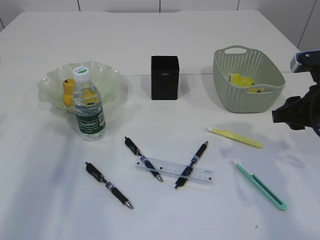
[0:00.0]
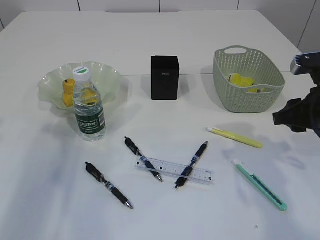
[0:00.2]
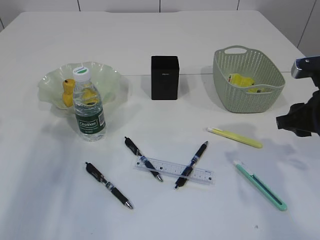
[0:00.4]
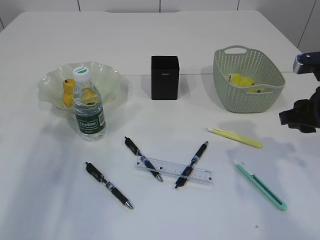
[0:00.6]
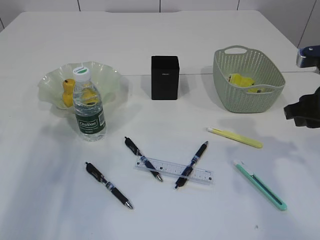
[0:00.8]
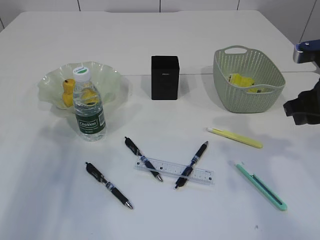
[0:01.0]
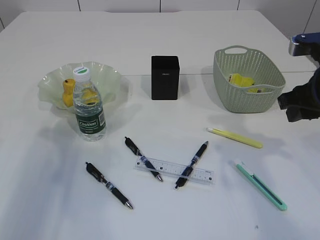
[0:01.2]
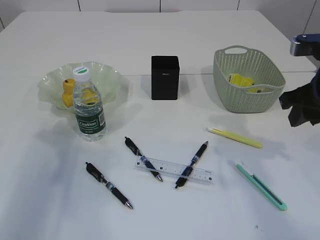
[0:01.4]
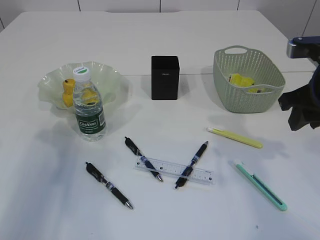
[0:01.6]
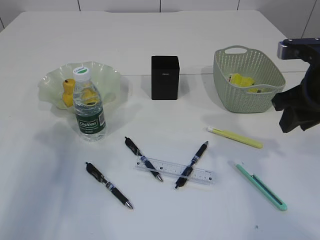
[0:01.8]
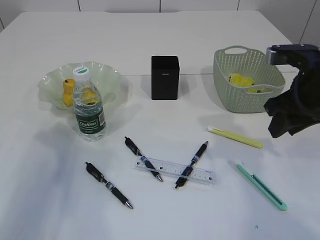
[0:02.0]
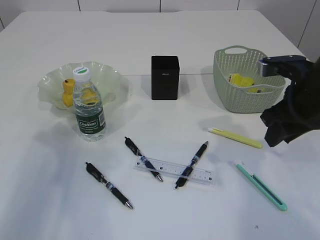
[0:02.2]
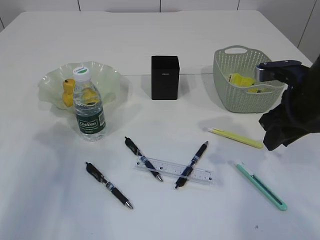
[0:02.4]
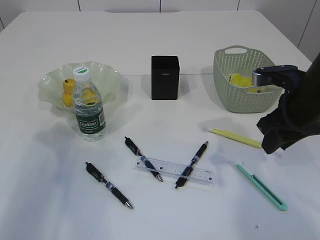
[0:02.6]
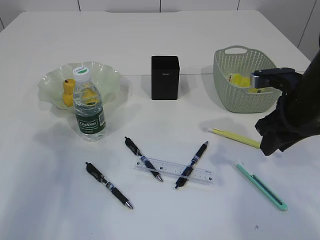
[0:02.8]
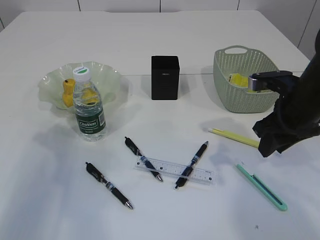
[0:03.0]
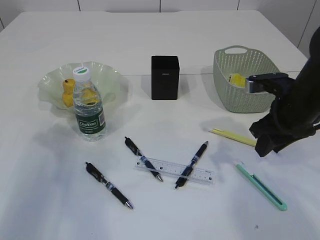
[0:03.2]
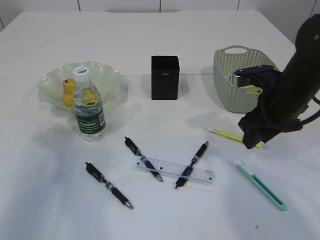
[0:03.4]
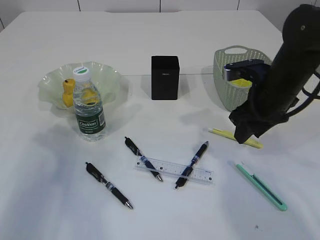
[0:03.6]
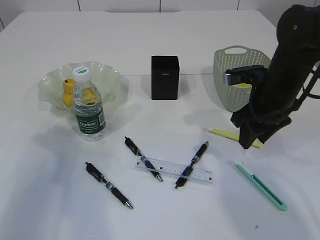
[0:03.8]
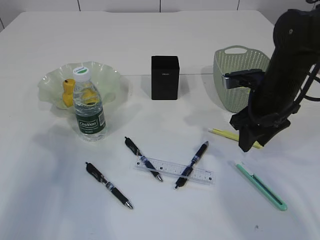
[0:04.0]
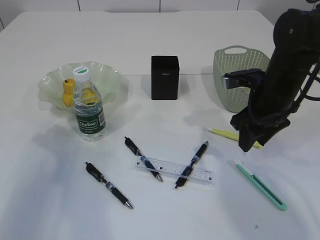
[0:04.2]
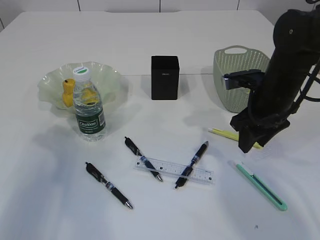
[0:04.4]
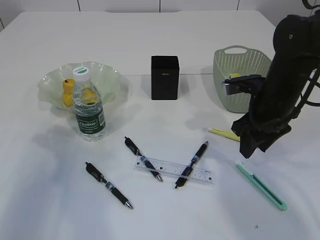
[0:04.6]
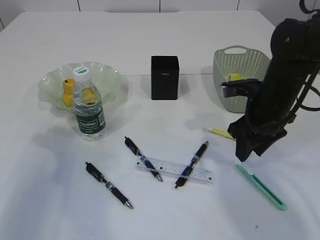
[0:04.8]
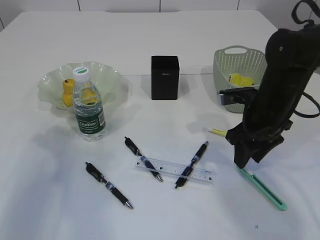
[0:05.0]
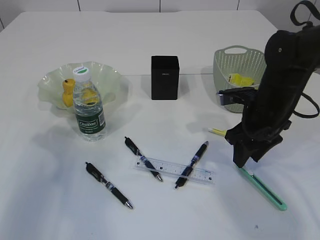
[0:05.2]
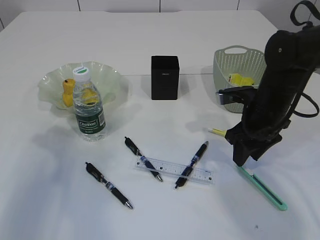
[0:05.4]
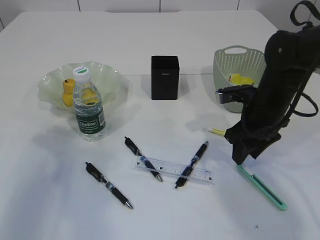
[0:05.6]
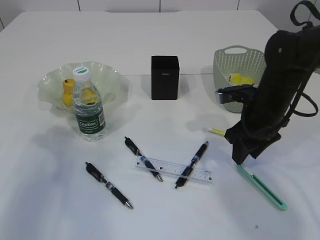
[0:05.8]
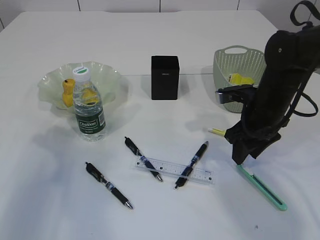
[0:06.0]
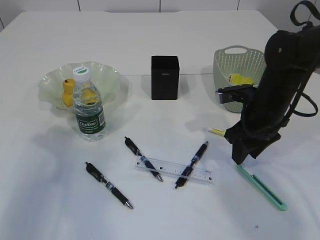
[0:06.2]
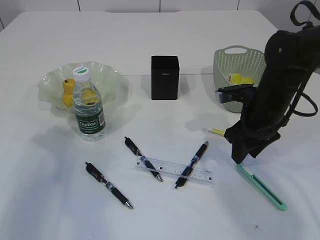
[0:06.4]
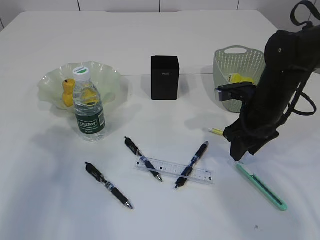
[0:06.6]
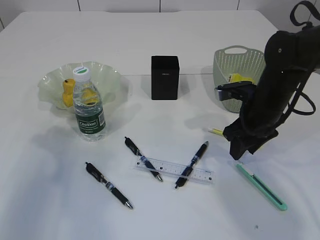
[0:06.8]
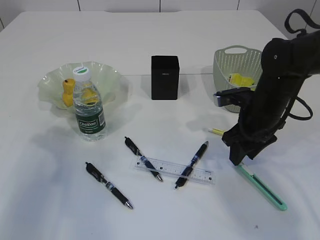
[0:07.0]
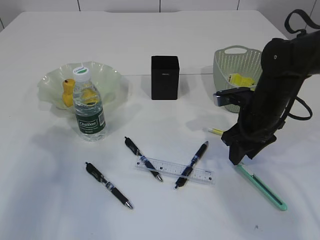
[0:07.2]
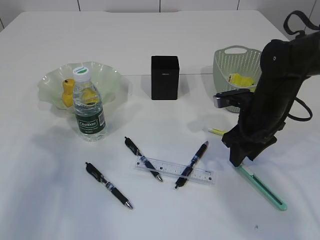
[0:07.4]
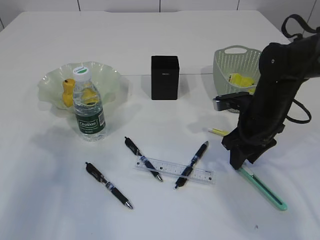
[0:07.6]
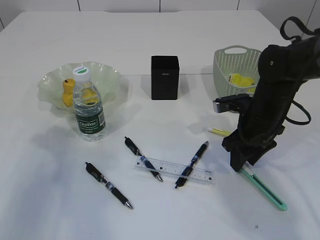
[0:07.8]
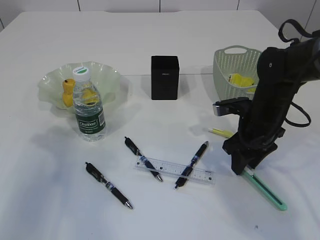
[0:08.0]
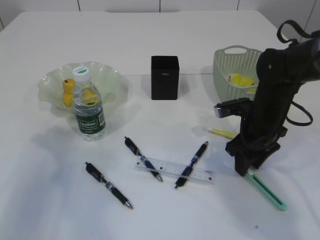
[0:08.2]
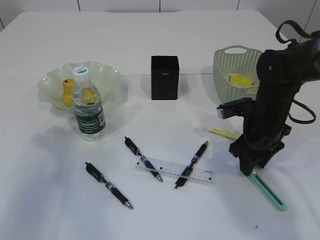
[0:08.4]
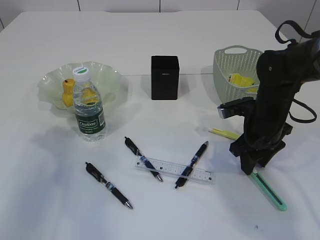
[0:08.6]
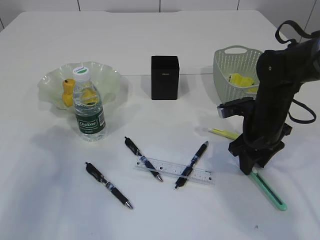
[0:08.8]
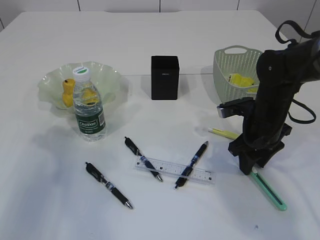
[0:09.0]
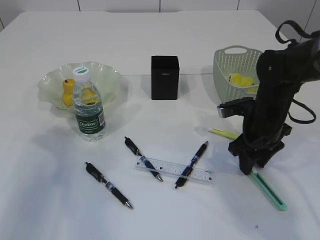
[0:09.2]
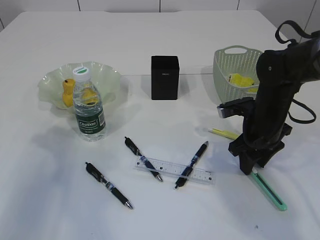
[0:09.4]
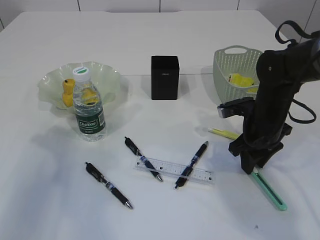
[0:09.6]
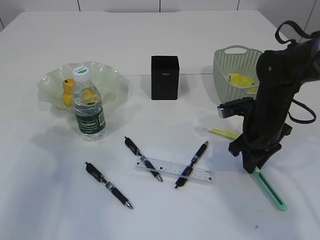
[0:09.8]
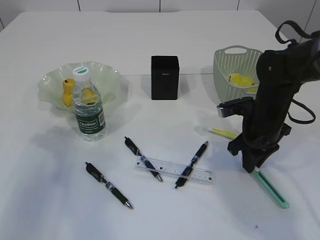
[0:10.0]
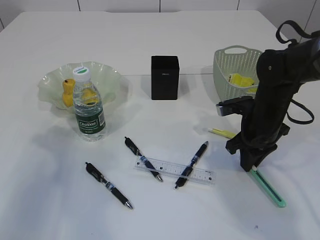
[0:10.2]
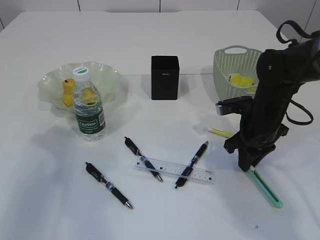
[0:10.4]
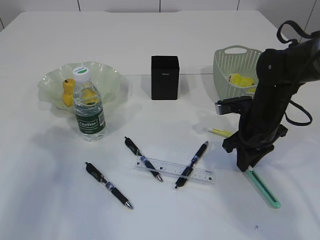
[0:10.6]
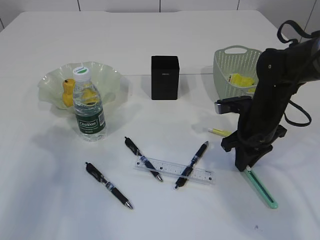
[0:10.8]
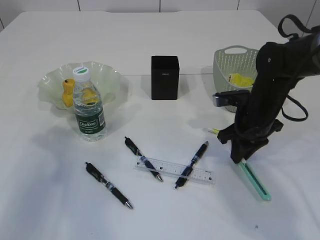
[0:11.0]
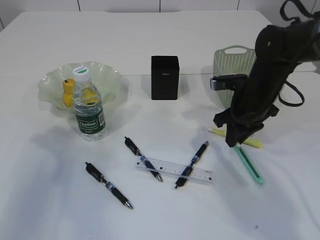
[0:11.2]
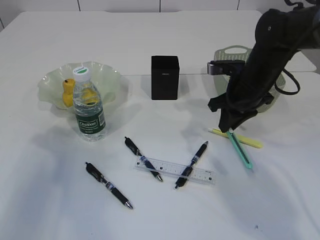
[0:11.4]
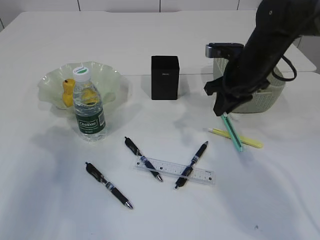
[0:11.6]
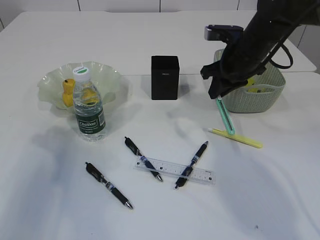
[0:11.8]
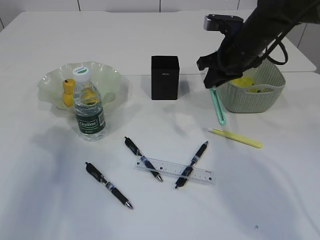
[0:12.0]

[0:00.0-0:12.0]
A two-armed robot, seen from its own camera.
Step, 0:00.0 to 0:11.2: pick up the blue knife.
0:00.0 to 0:01.6: The right gripper goes roughly 5 cm upward.
0:01.6 to 0:03.0: The right gripper heads downward, covering roughly 5 cm.
0:03.0 to 0:04.4: The grippers move only a little.
0:04.4 to 0:07.6: There are only small adjustments of the grippers.
0:07.6 to 0:09.0: The grippers move only a little.
0:09.0 to 0:10.4: The right gripper closes.
0:10.4 to 0:12.0: The right gripper goes approximately 15 cm upward and forward.

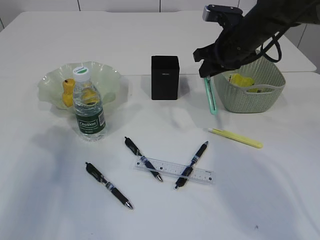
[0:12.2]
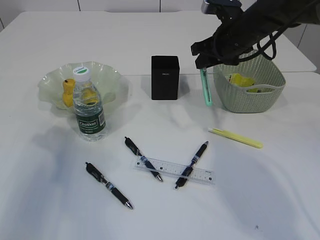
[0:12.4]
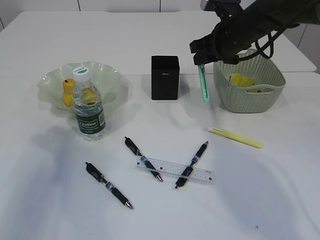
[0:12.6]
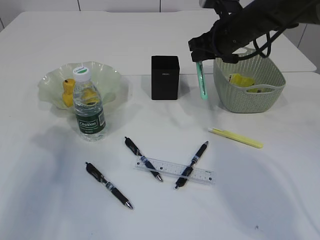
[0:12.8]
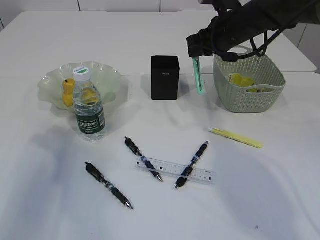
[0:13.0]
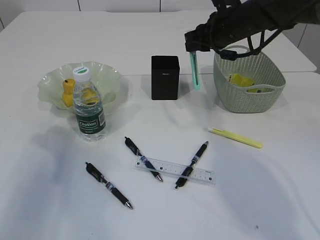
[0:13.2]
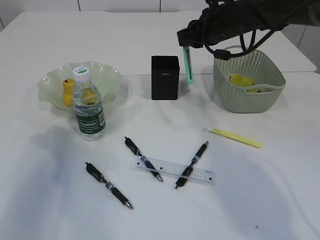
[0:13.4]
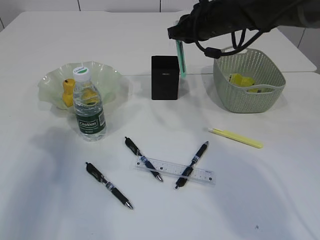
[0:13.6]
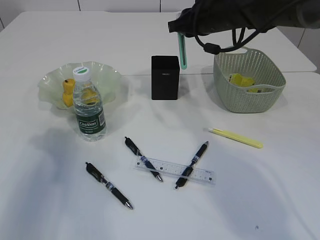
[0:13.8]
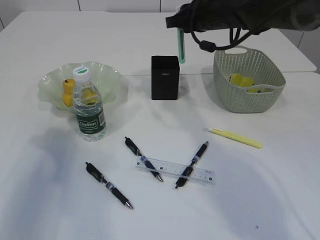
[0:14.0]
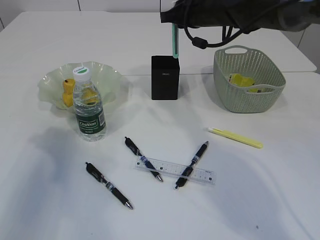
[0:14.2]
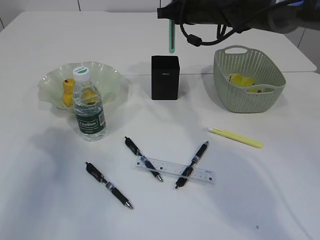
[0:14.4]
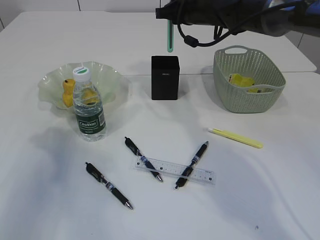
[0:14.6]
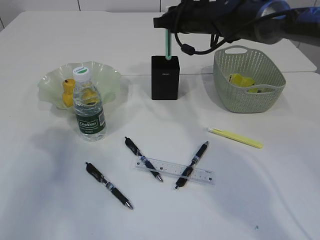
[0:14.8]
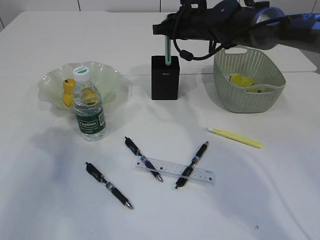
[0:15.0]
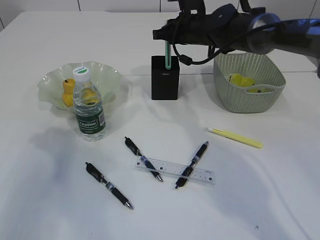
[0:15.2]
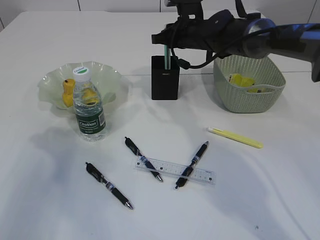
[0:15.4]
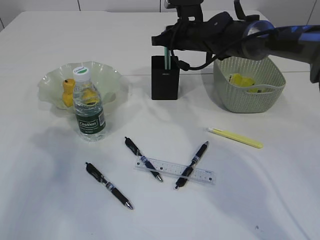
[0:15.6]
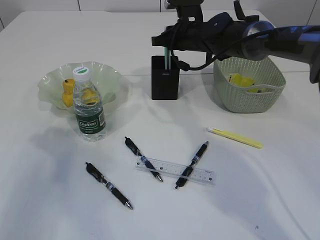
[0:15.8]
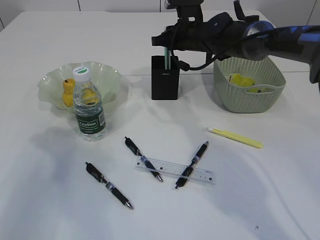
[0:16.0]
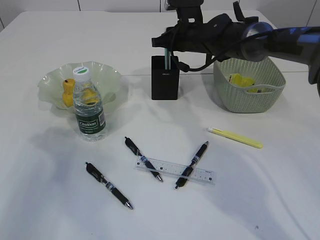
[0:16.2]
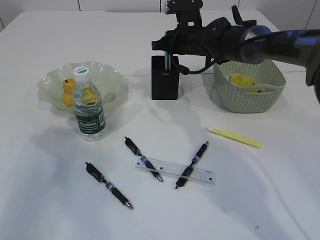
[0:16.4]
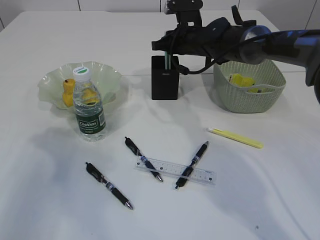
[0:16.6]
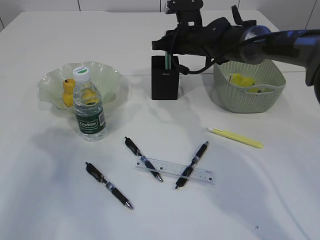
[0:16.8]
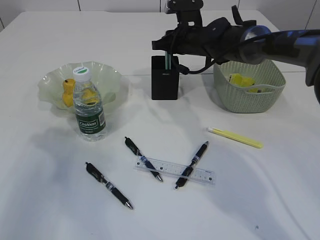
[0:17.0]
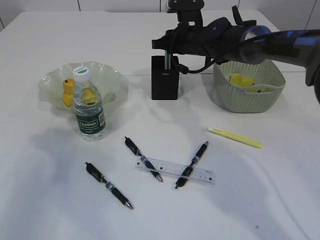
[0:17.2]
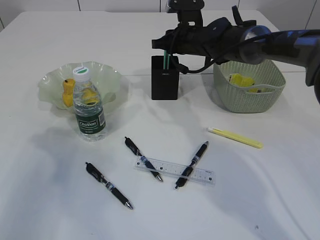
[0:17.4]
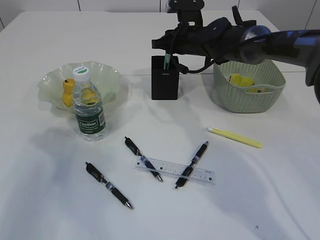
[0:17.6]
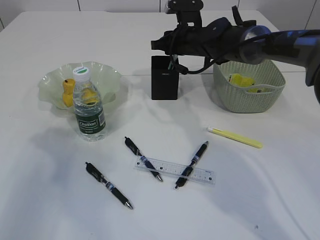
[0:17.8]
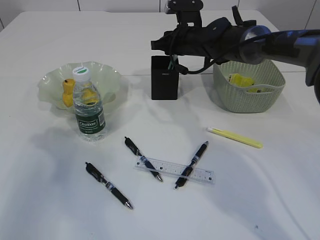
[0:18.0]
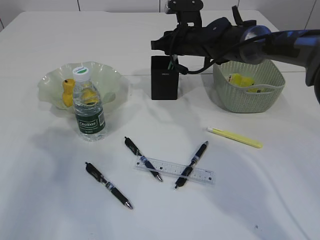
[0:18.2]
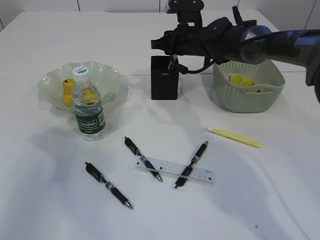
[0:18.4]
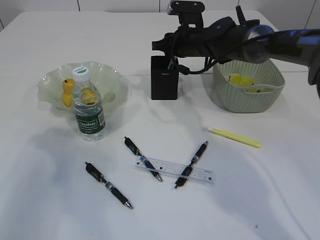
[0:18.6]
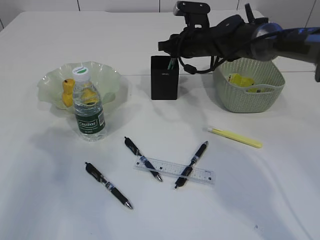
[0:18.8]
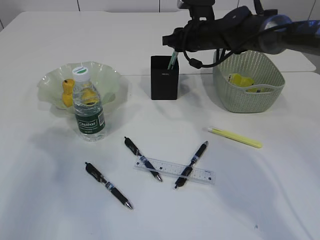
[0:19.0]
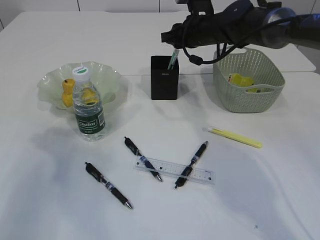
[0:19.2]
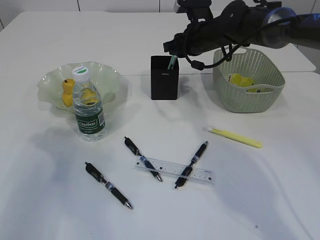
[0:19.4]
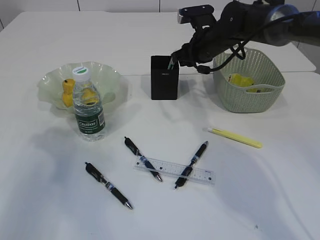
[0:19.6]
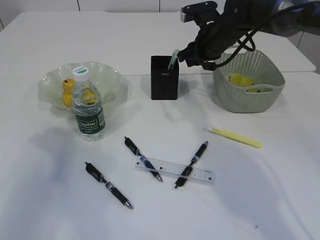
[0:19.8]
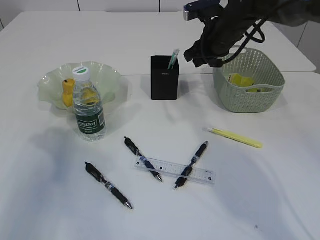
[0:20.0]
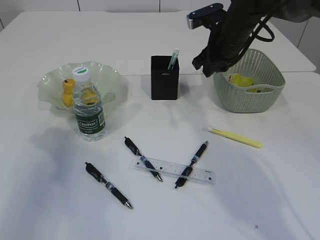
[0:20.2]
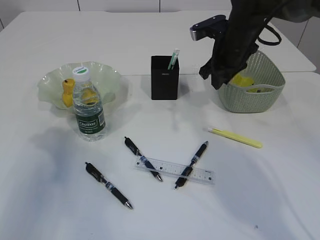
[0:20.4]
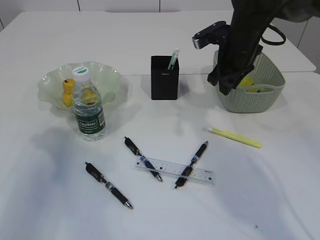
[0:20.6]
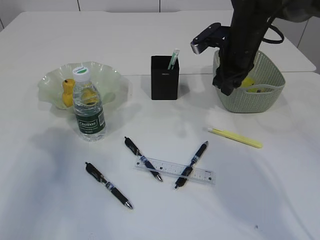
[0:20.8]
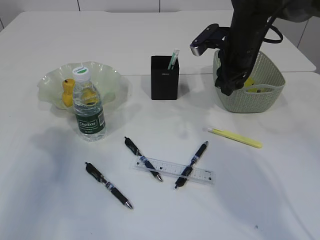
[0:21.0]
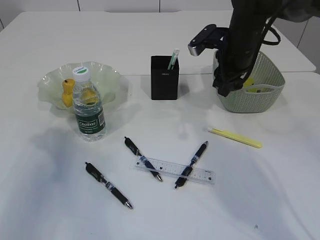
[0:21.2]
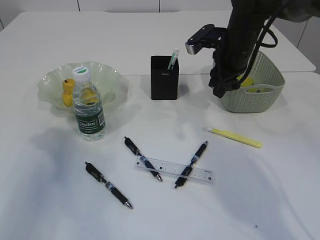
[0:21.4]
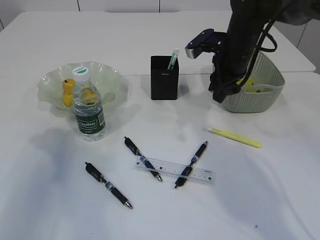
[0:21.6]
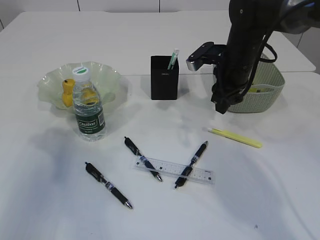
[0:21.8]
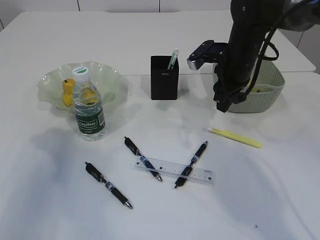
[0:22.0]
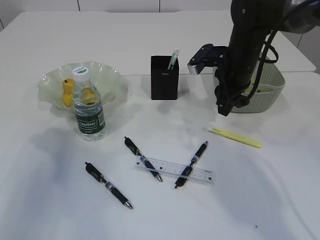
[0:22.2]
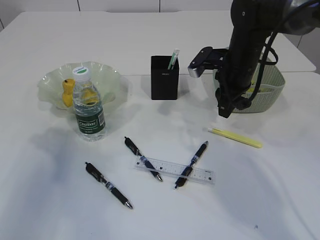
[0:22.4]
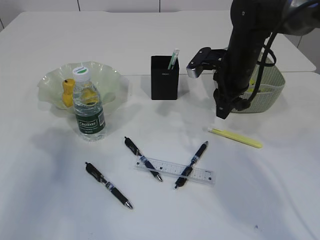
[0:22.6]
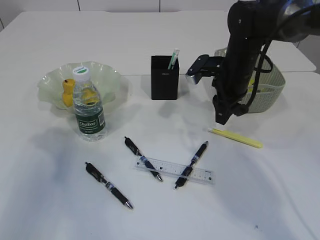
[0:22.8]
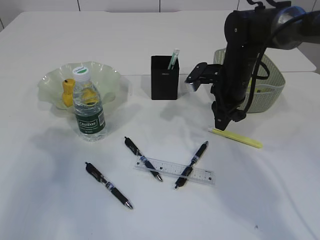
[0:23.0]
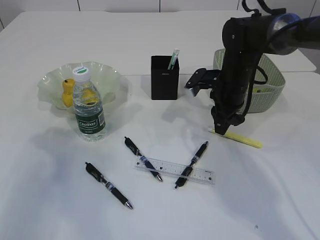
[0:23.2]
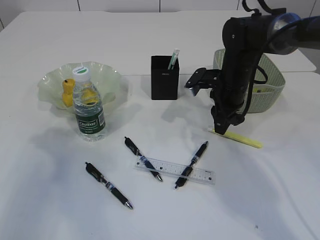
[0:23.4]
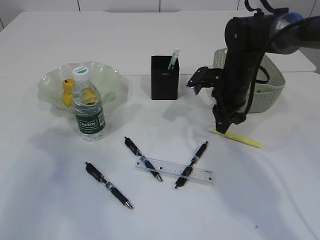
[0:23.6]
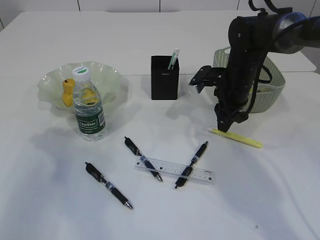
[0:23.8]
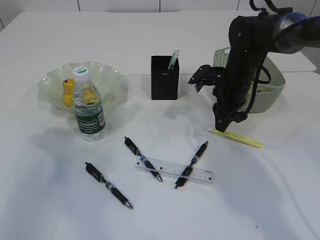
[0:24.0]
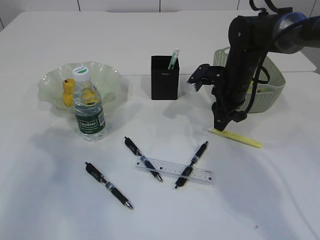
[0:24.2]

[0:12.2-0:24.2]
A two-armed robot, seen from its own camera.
Step, 0:12.2 to 0:19.8: Place the blue knife into the pen holder.
0:12.2 to 0:13.8: The right gripper shifts by approximately 5 cm.
0:13.8 to 0:15.2: The right gripper is displaced forward by approximately 5 cm.
0:15.2 to 0:16.6: The grippers make only small movements.
0:16.6 to 0:18.2: Neither gripper changes place.
0:18.2 to 0:19.8: The right gripper travels to the right by about 5 cm.
0:19.8 to 0:21.2: The right gripper changes place by roughly 5 cm.
0:21.2 to 0:22.6: The grippers stay close to where they were, moving slightly.
0:22.6 to 0:24.2: The grippers make only small movements.
